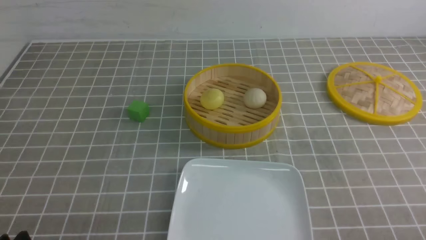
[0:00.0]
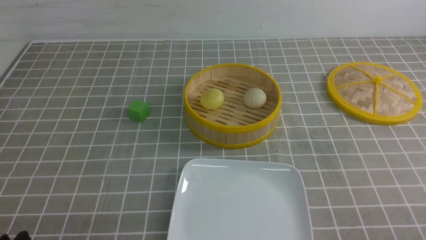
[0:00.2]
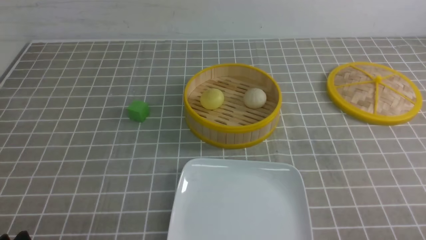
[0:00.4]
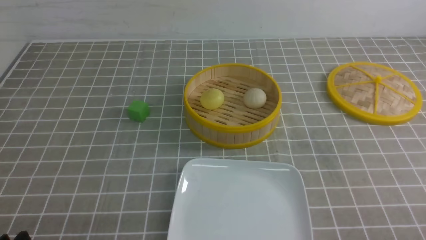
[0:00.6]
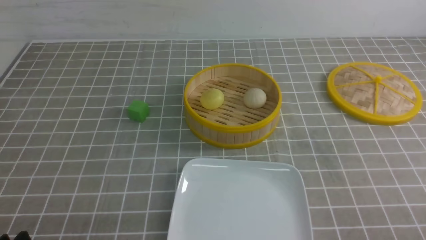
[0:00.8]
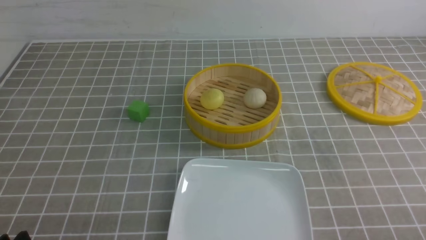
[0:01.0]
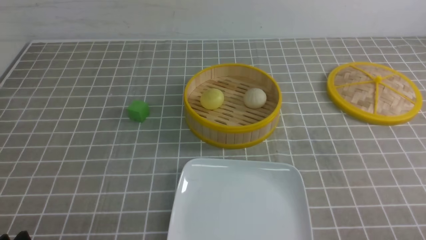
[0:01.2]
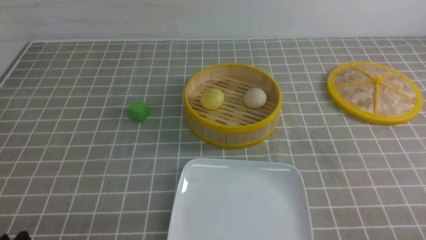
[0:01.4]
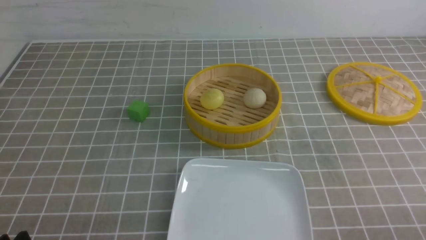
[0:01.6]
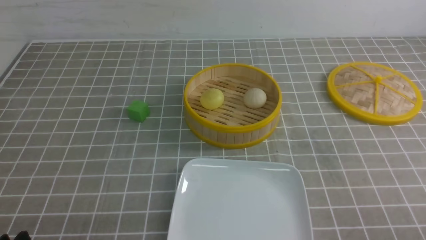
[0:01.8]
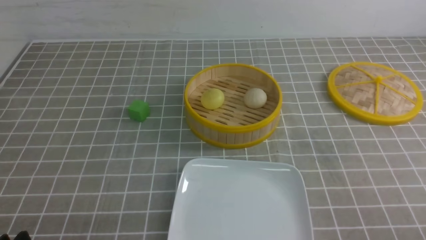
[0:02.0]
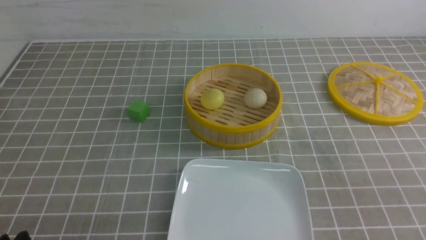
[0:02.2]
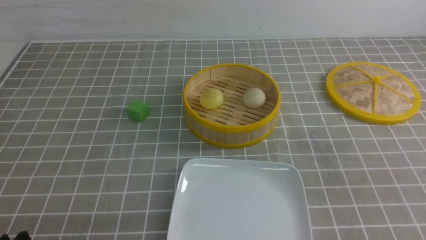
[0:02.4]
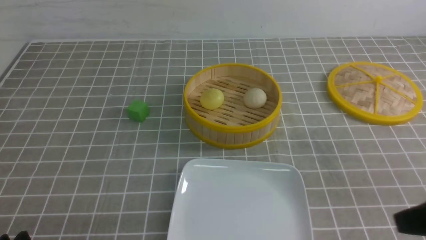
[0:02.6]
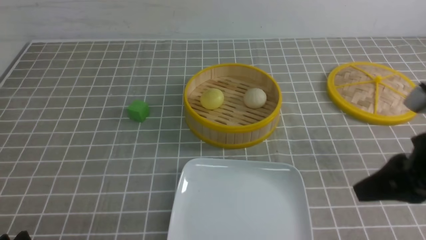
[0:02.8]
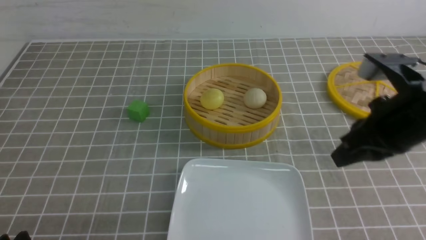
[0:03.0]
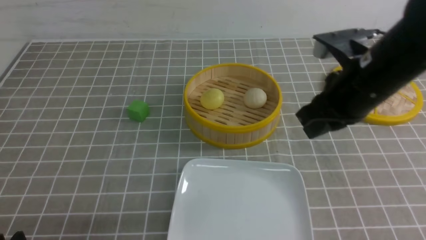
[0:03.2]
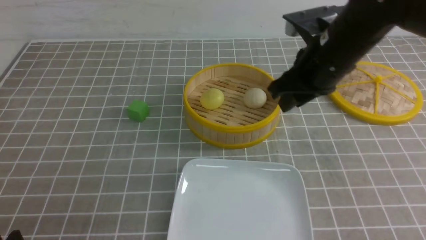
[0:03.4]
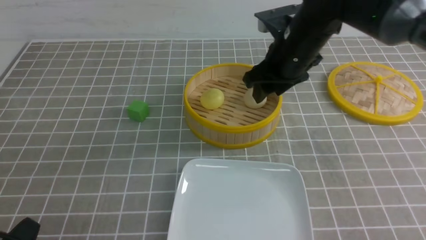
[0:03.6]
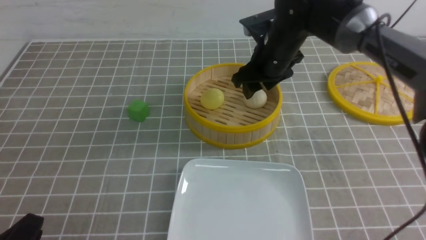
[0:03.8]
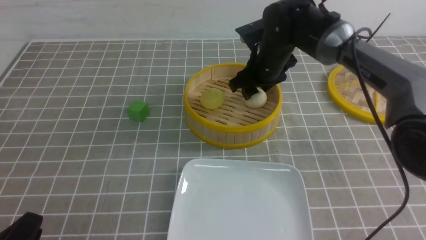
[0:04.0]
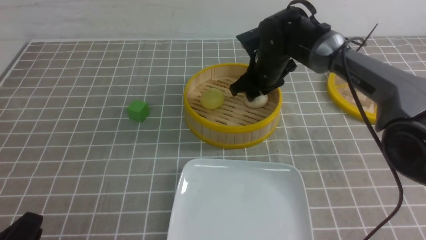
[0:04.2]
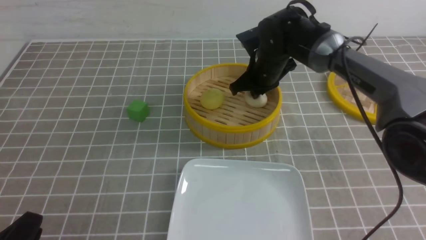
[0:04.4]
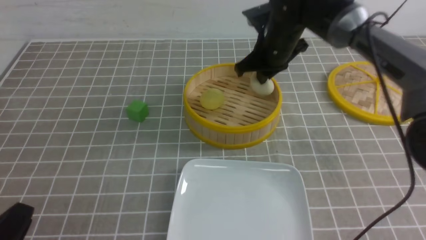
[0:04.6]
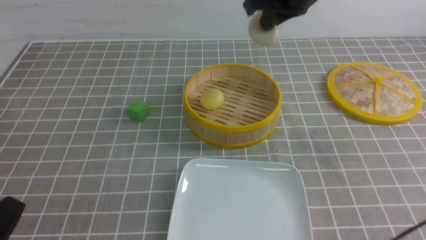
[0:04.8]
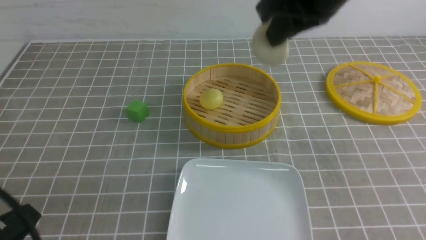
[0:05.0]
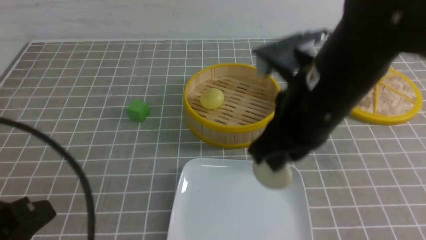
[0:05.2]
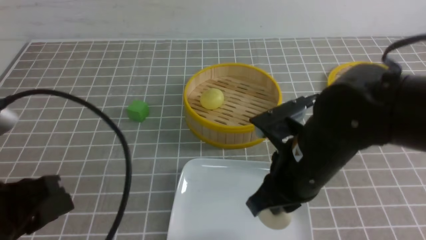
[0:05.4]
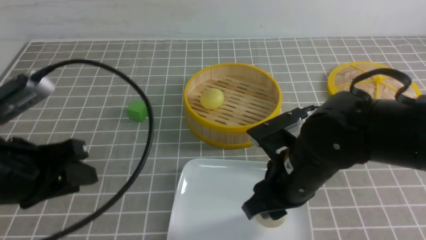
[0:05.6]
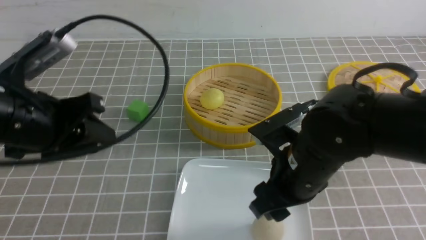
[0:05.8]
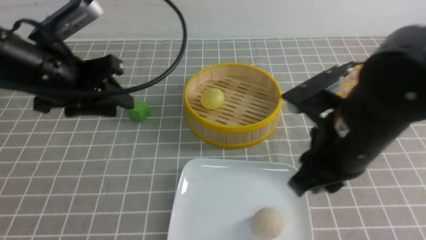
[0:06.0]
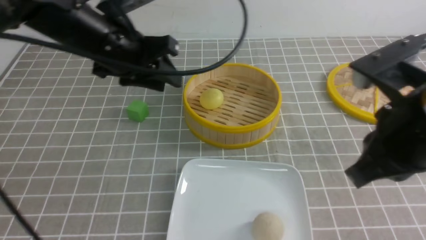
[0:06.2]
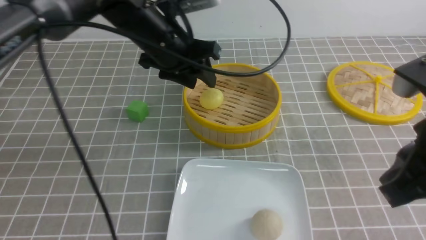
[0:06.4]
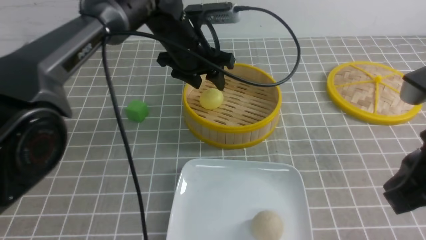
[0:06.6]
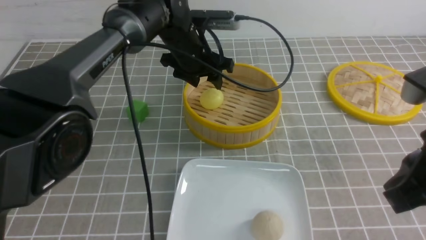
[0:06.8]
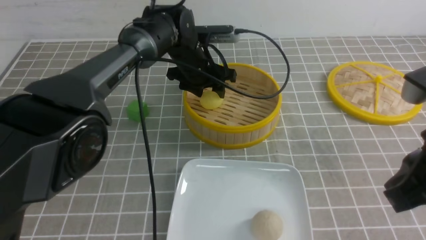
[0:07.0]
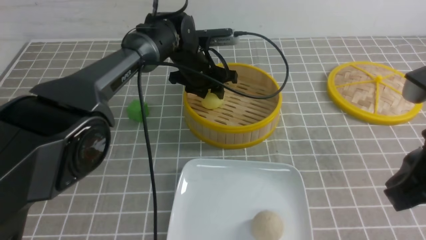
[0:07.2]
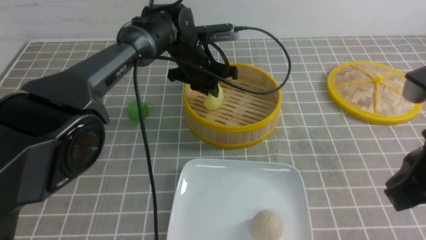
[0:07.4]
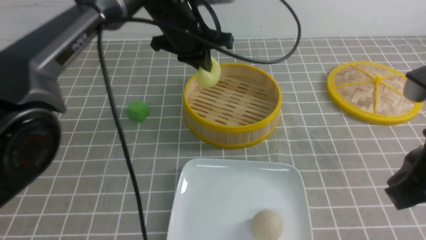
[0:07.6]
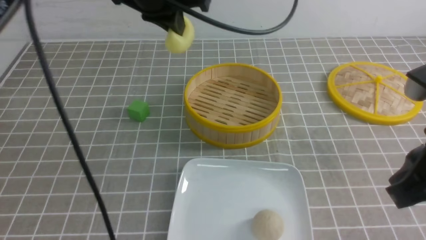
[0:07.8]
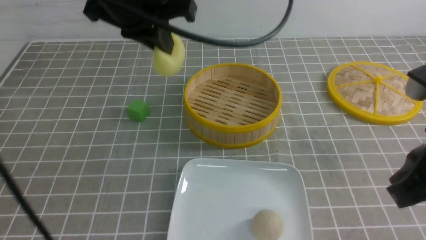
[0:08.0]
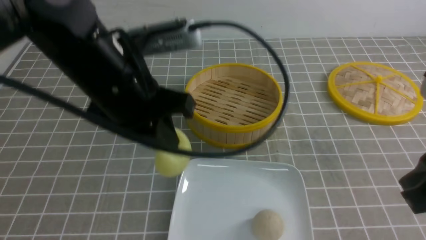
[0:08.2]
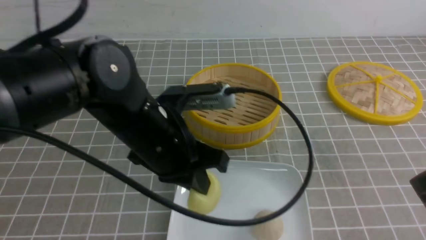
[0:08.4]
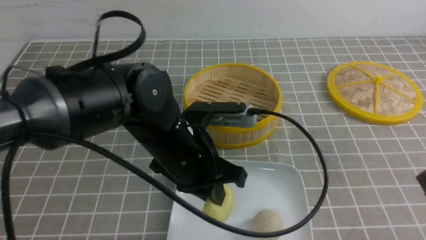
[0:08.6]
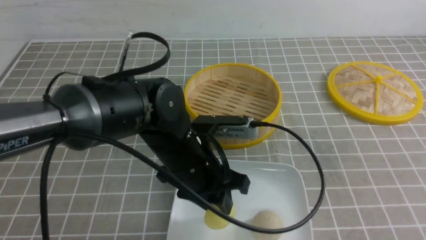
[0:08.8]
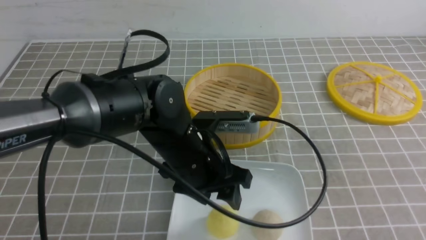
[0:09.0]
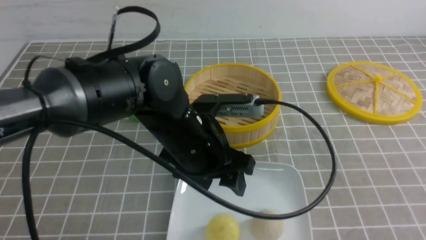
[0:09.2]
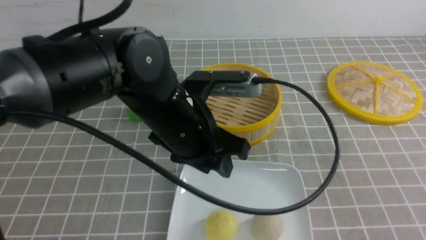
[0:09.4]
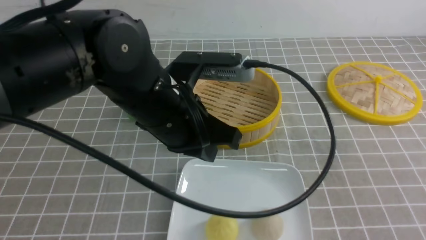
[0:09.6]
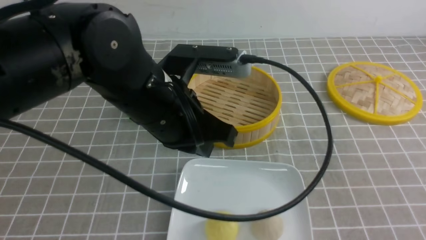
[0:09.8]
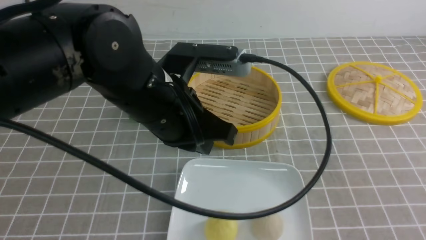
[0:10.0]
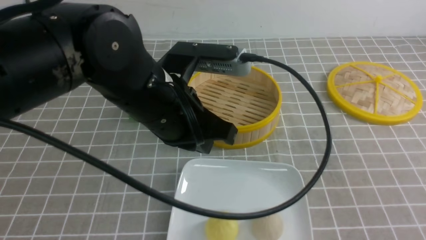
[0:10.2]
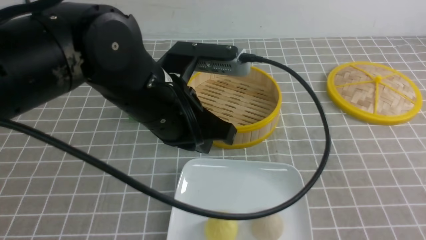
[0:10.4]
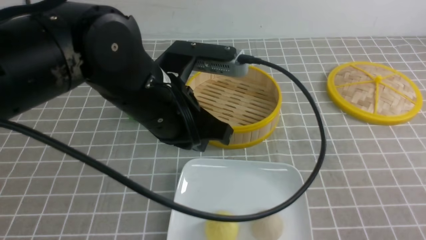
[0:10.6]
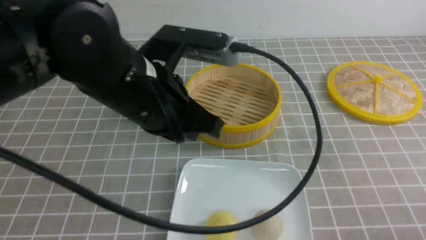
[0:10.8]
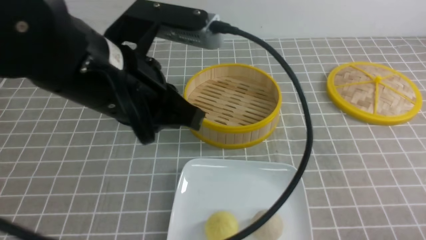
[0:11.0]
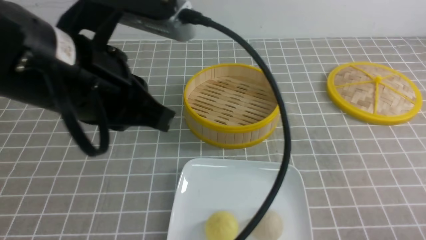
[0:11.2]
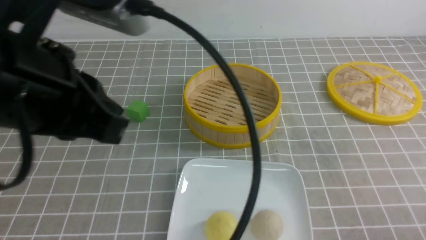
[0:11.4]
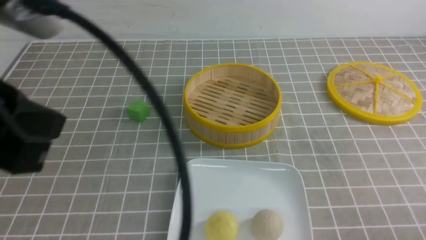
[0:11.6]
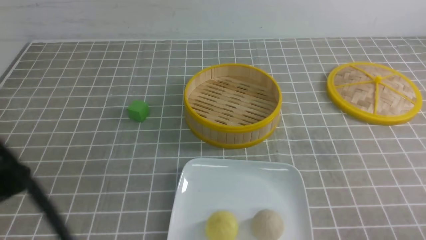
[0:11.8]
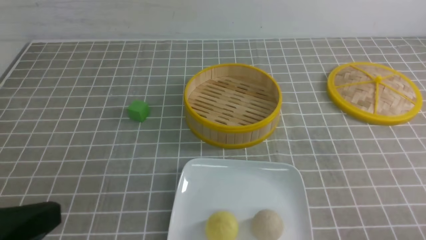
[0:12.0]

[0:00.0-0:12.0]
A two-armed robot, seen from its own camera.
Step, 0:00.0 to 0:04.4: use the right arm to grab the steamed stuffed bun that is closest to it.
Step, 0:04.6 to 0:05.6: use the right arm to put the steamed stuffed bun into the plate.
Step, 0:06.0 to 0:07.4: use the left arm to grab the steamed stuffed bun that is closest to it.
Step, 0:07.6 to 0:08.8: use the left arm to put the steamed stuffed bun into the plate.
0:01.6 to 0:03.0: The right gripper travels forward, upward and to the left by approximately 25 cm, and closes its fingers.
0:03.0 to 0:04.4: The right gripper moves forward and to the left, about 30 cm, and opens its fingers.
0:04.4 to 0:06.0: The right gripper is displaced backward by approximately 25 cm, and closes, then reopens; the left gripper travels forward and upward by about 25 cm.
0:06.0 to 0:07.6: The right gripper shifts roughly 15 cm to the right, upward and backward, and closes up. Meanwhile the left gripper goes some 25 cm forward and to the right, and closes.
0:07.6 to 0:09.0: The left gripper goes about 20 cm backward, and opens. The right gripper shifts approximately 10 cm to the right and backward.
0:09.0 to 0:10.4: The right gripper moves downward, roughly 10 cm; the left gripper heads upward, covering roughly 10 cm, and closes up.
0:10.4 to 0:12.0: The left gripper is displaced backward and to the left by about 25 cm; the right gripper travels downward by roughly 10 cm.

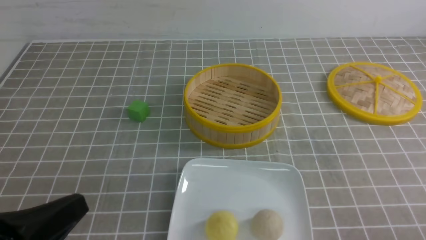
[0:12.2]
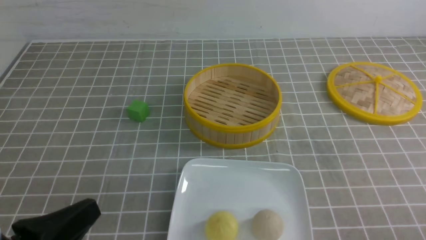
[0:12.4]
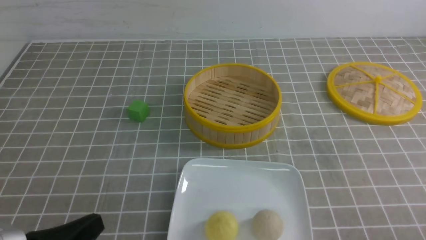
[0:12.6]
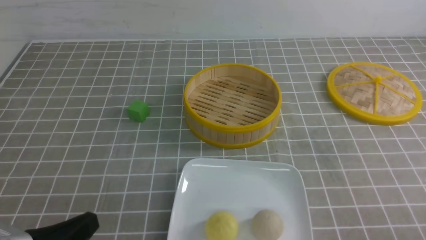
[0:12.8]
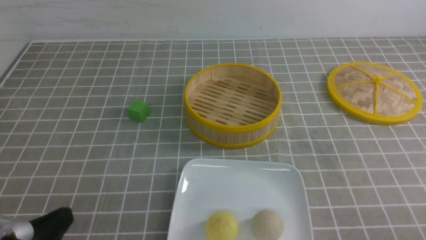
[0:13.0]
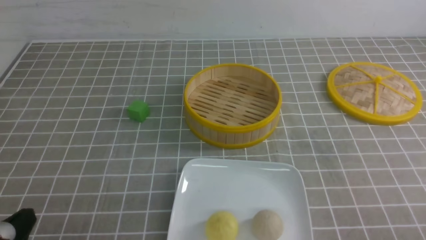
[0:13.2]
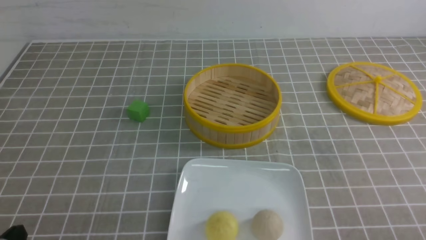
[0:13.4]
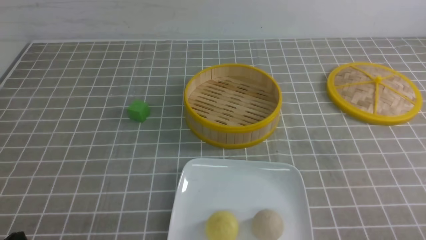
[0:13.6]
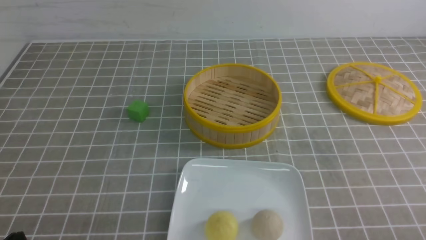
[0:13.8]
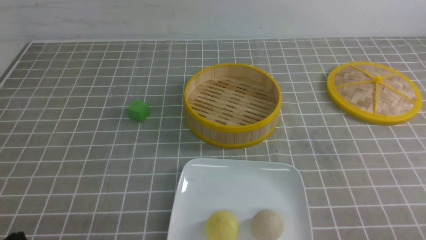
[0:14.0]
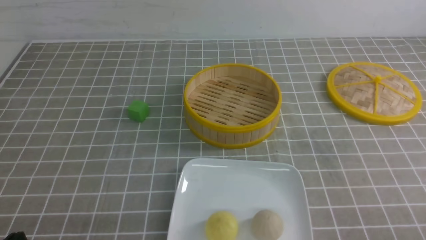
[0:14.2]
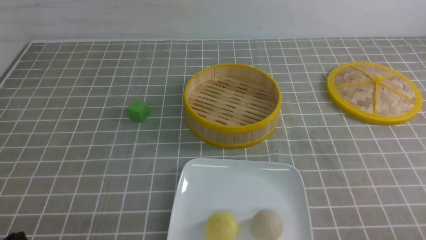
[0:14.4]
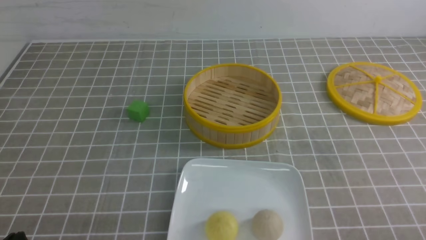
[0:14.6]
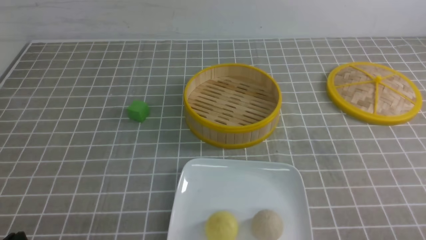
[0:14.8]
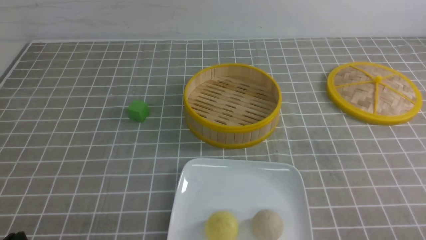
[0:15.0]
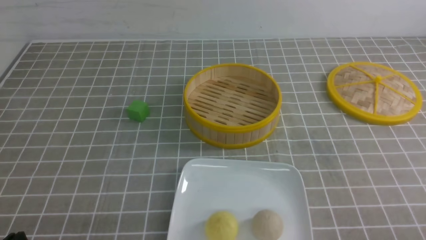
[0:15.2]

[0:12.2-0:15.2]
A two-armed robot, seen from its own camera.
0:12.2 to 0:13.8: The left gripper is displaced downward by about 15 cm.
0:13.8 to 0:15.2: The two grippers keep their place.
